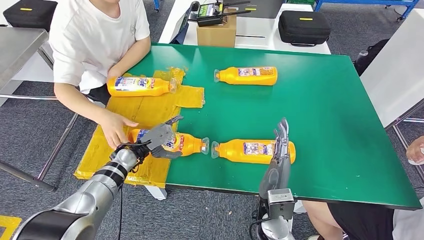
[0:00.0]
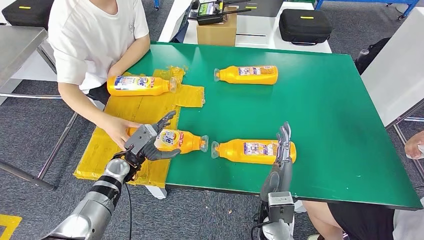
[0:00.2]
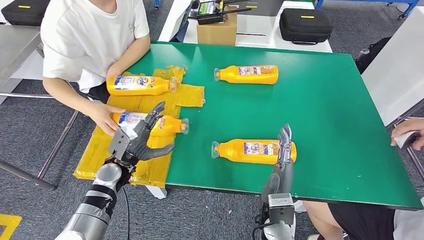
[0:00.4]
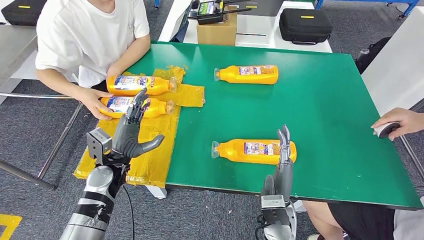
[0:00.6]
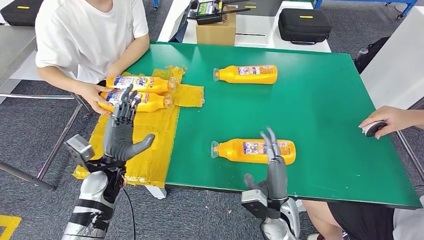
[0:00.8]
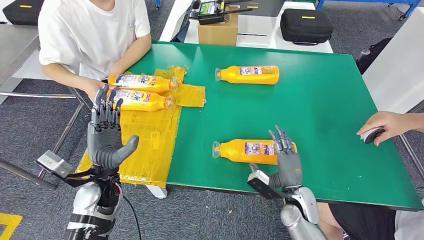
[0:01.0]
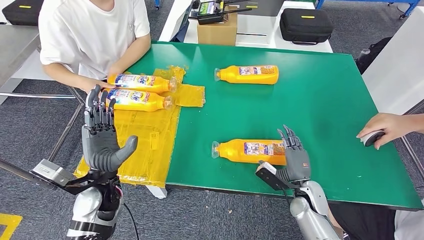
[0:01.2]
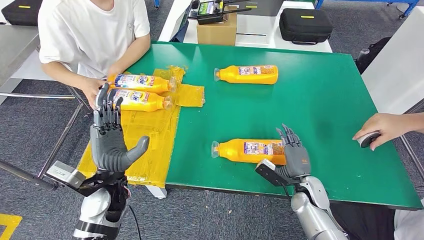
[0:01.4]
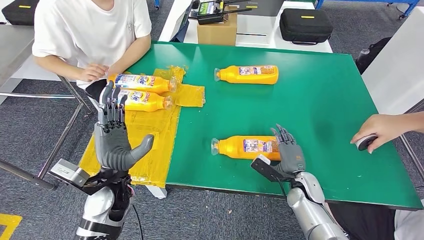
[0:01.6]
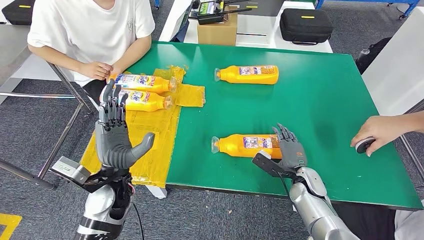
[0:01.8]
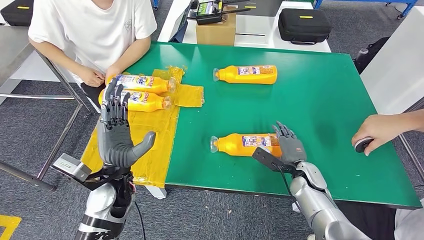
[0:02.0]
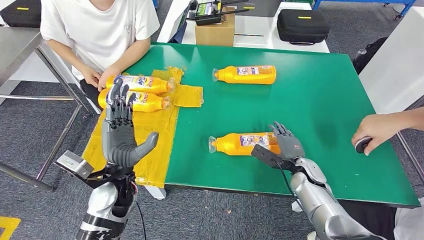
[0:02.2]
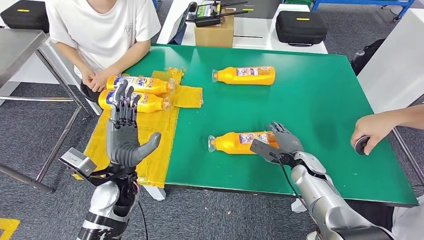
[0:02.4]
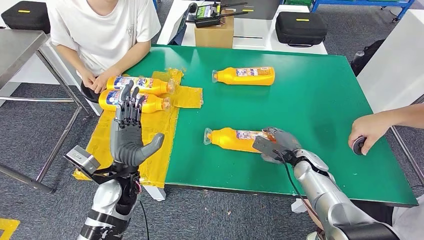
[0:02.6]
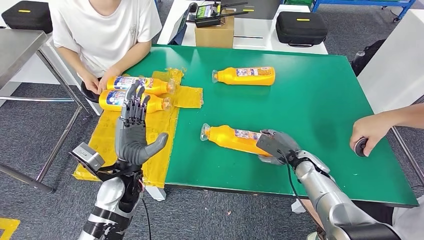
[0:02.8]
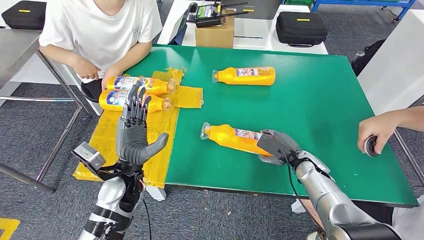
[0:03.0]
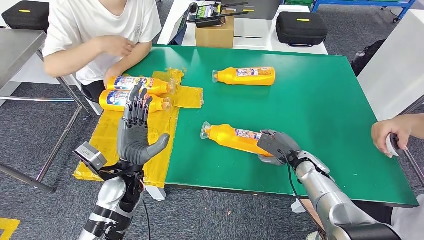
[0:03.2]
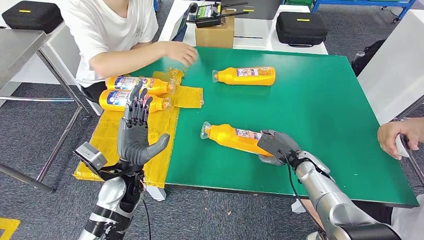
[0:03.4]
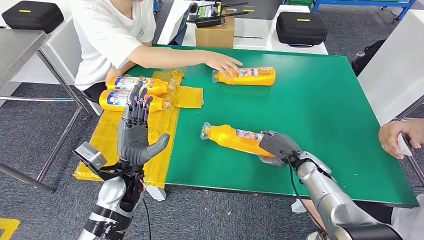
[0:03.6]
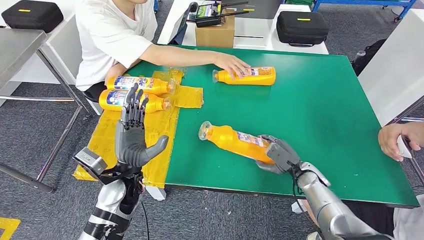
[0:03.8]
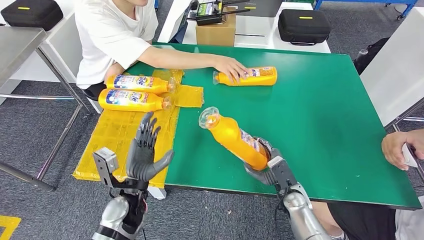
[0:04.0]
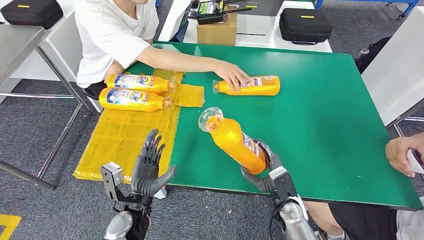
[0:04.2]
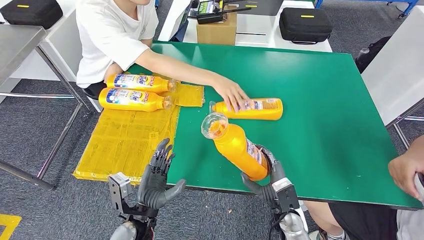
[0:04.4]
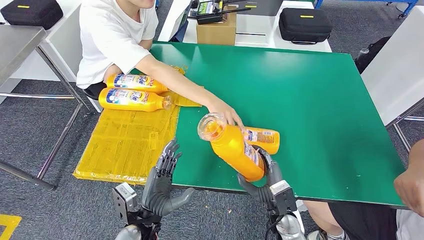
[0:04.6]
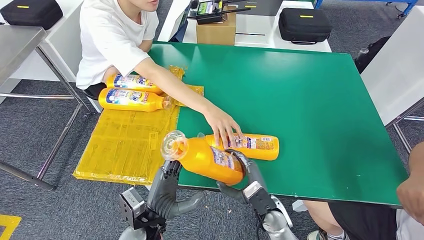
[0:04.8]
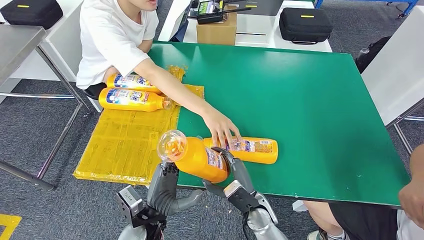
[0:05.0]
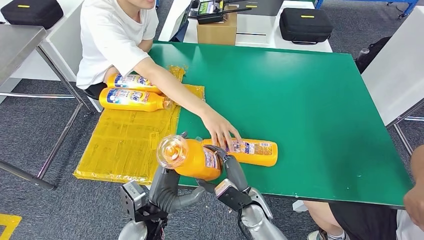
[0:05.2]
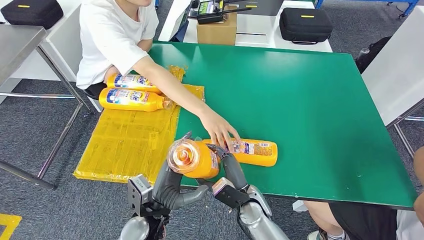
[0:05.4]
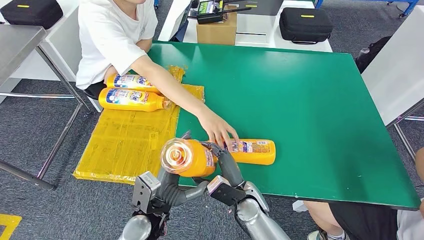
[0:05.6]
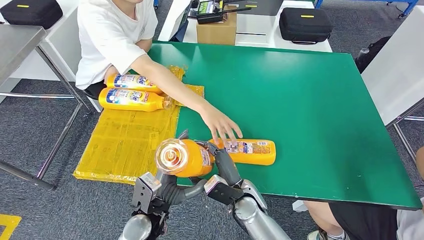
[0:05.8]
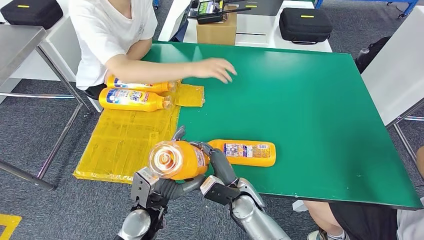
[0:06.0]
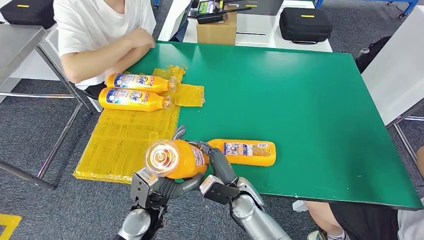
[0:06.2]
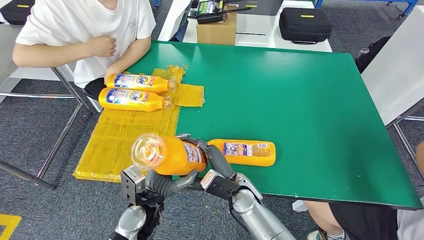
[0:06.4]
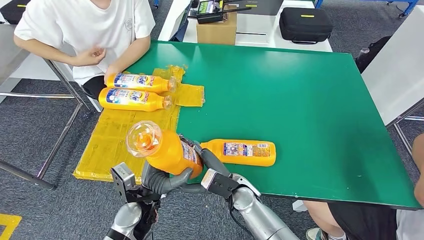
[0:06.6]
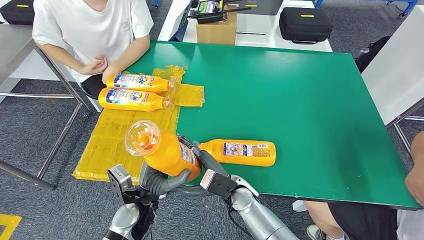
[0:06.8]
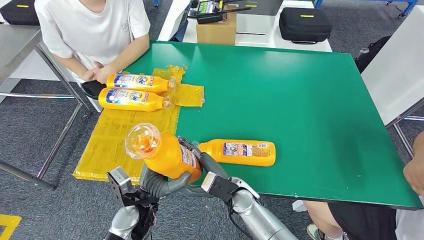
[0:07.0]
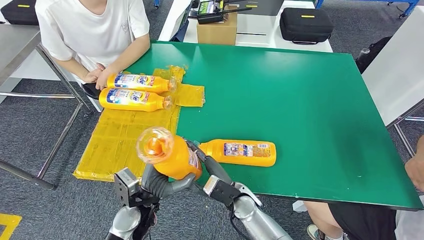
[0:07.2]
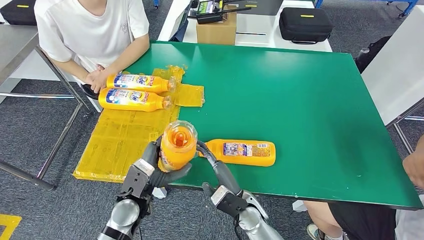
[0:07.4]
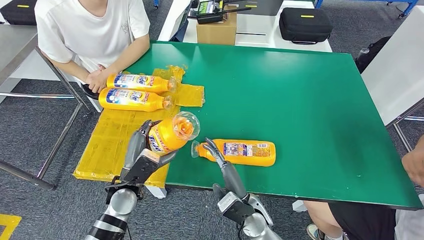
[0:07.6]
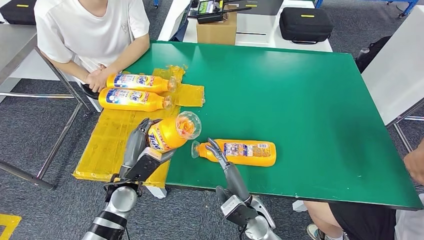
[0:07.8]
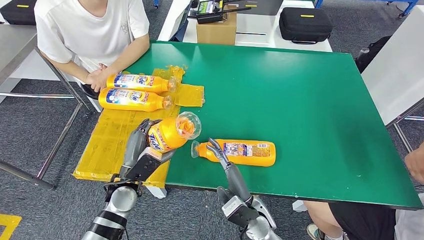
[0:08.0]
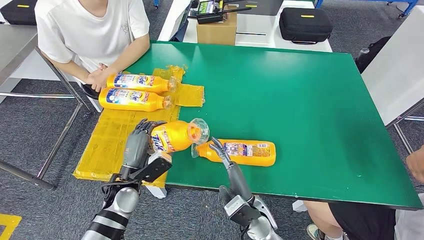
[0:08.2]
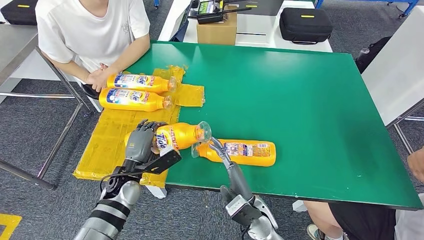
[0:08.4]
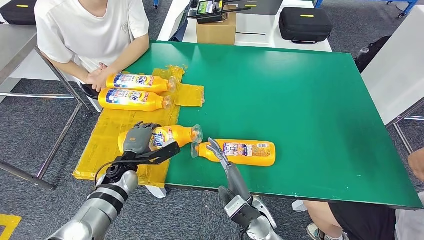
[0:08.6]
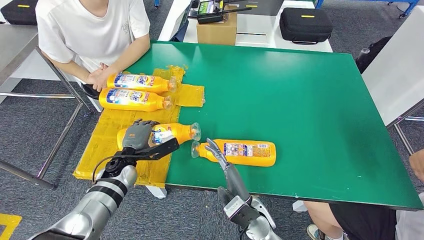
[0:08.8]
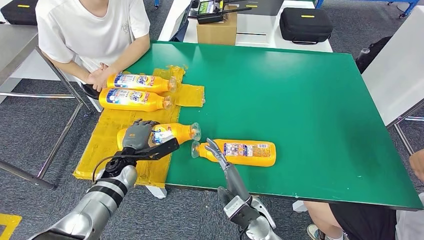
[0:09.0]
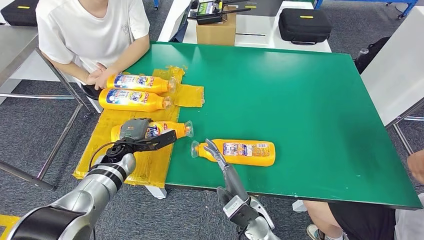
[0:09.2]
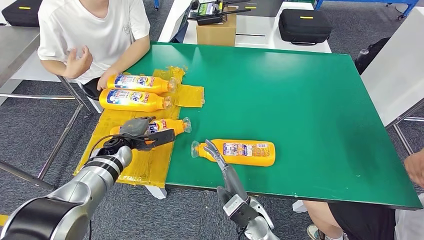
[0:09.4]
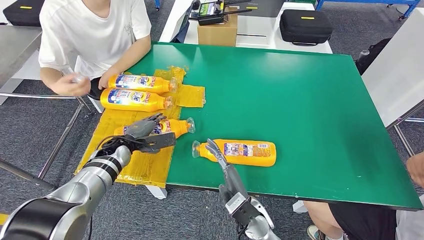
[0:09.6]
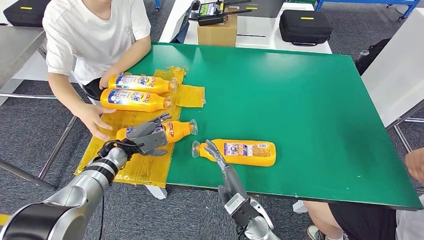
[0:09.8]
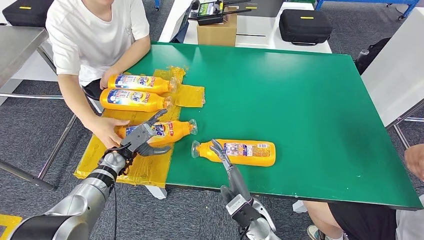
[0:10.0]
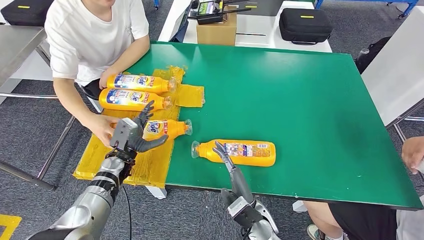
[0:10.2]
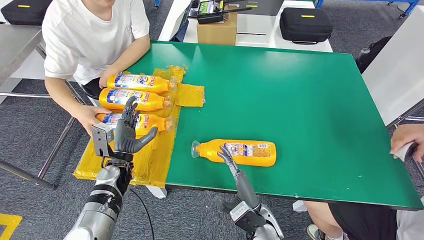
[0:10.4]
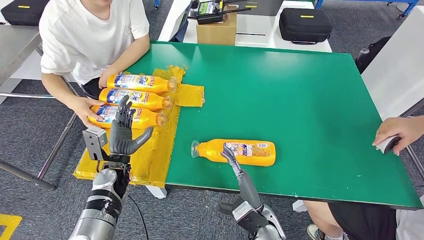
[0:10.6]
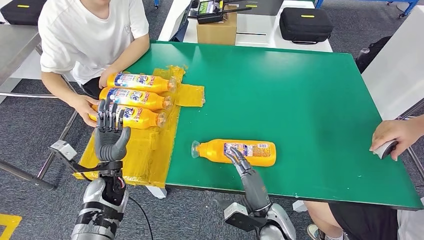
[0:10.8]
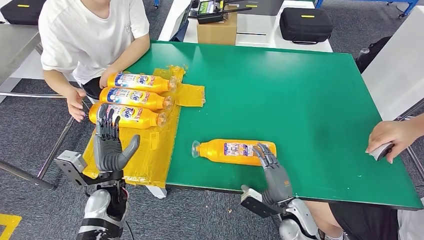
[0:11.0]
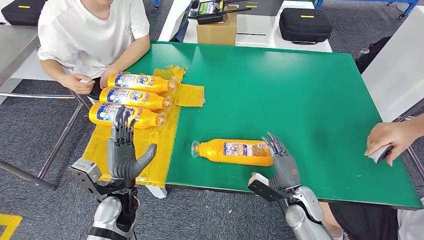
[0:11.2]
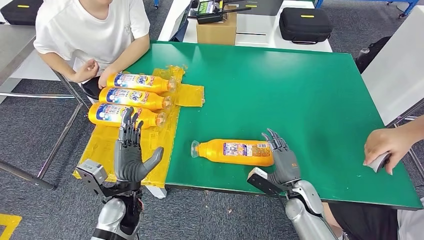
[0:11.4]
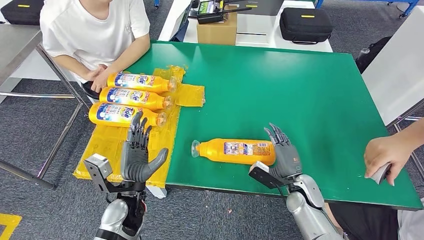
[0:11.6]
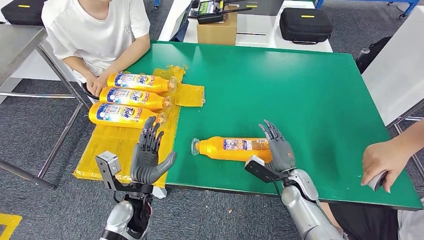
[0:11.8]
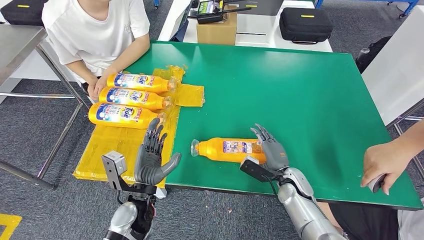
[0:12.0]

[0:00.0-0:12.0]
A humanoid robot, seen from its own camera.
Step, 0:00.0 to 0:02.2: Flip the bottle to face forward.
Step, 0:02.4 to 0:04.6: Pick up the bottle from the table.
Step, 0:04.8 to 0:10.6: Flip the bottle to face forward.
0:04.4 to 0:06.0: The right hand shifts about 10 cm to the left.
0:07.6 to 0:09.0: The left hand moves forward and to the left, some 10 cm.

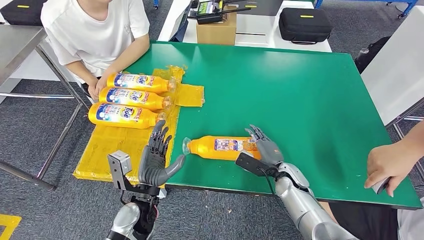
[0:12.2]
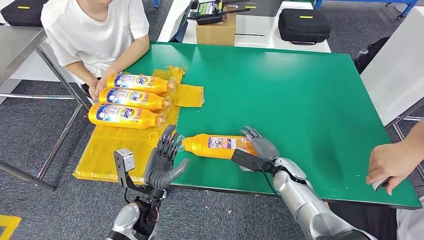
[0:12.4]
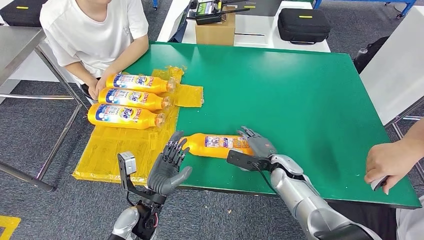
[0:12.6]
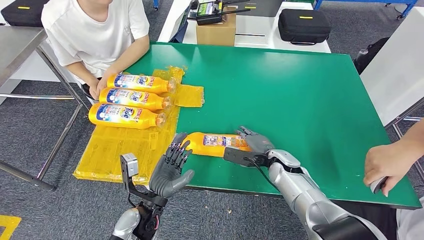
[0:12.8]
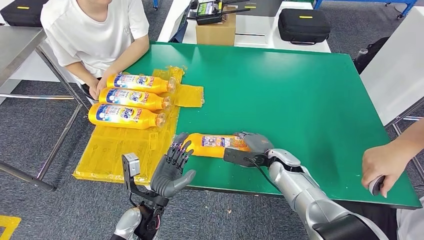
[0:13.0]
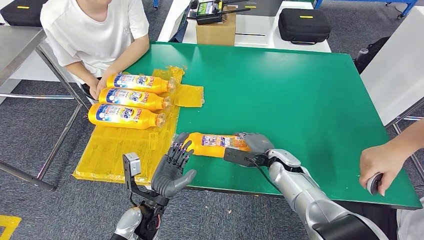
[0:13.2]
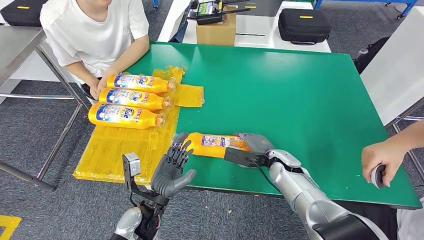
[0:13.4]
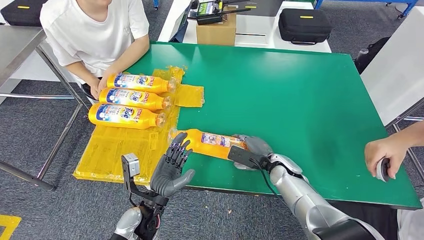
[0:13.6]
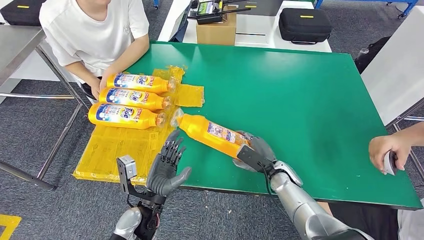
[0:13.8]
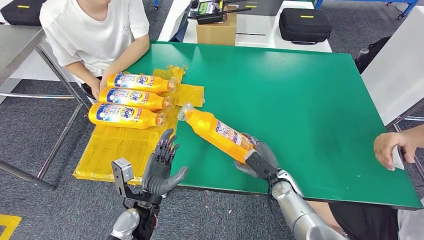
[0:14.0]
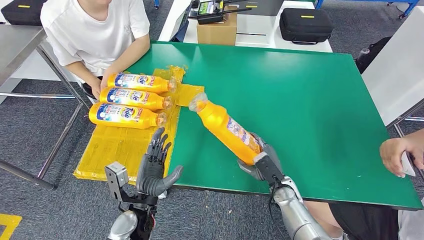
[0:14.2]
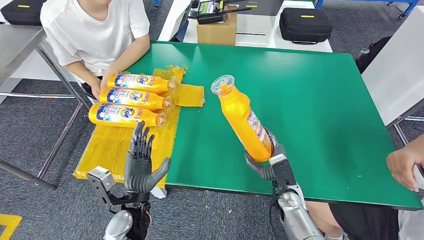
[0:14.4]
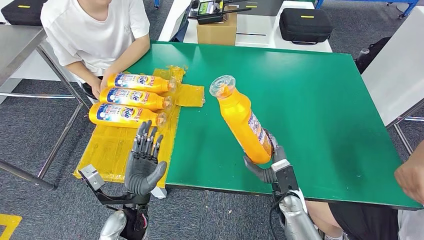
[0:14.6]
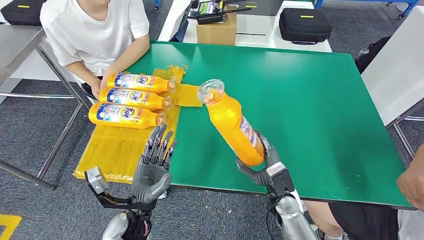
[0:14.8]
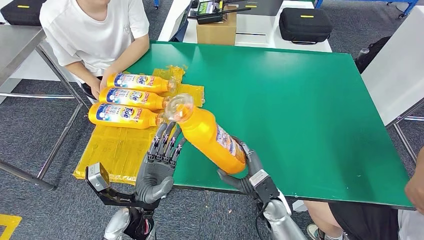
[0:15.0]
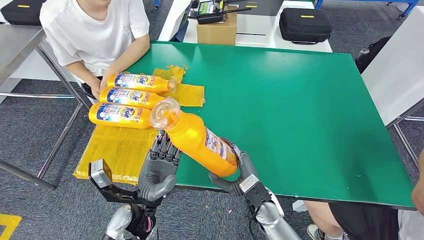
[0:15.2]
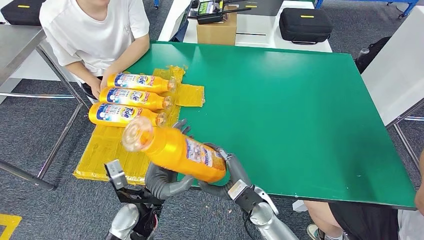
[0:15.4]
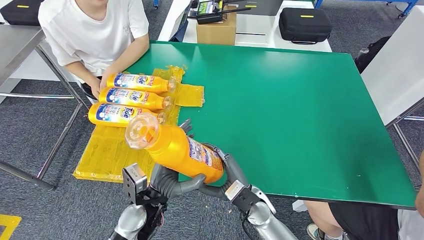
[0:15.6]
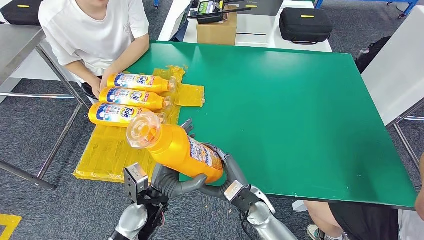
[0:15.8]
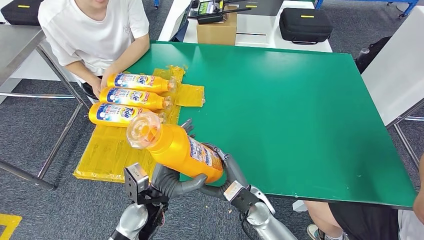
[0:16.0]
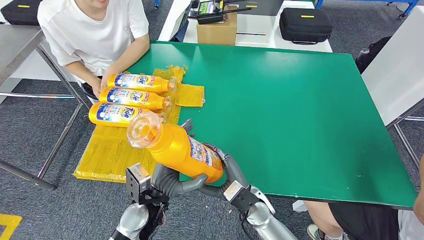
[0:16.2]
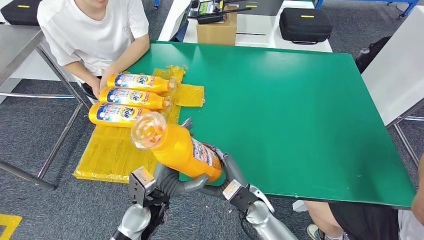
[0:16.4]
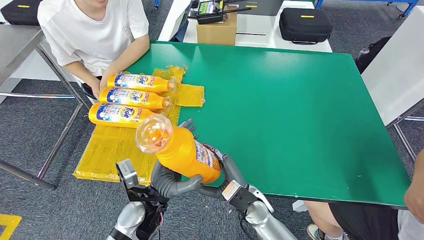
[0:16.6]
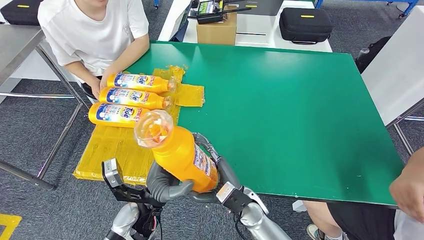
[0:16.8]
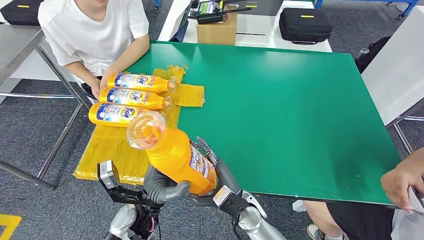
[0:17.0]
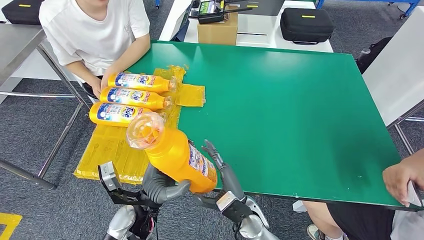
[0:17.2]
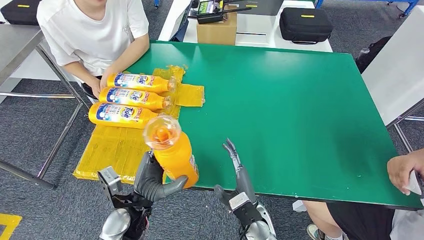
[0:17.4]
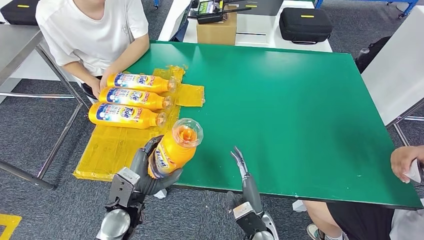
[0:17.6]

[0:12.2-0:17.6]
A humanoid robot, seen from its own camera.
Step, 0:12.2 to 0:15.4: Pick up the bottle from the table.
0:13.6 to 0:15.0: The right hand travels backward and to the left by roughly 10 cm.
0:15.0 to 0:16.2: The right hand changes place by some 5 cm.
0:16.2 to 0:17.6: The right hand shifts roughly 5 cm backward. The left hand moves to the left, about 5 cm.
